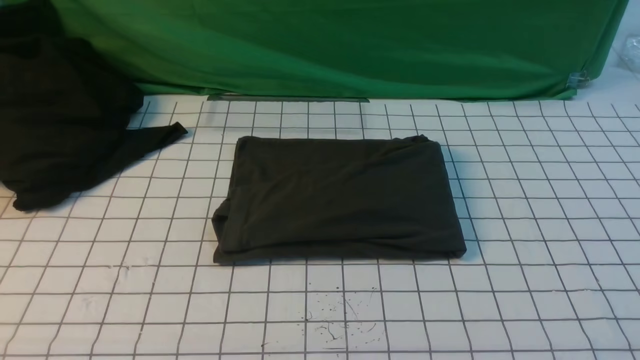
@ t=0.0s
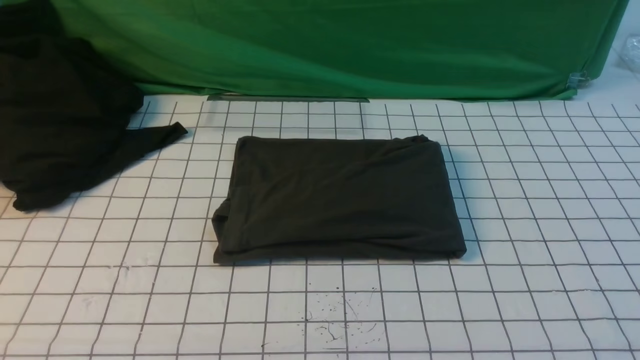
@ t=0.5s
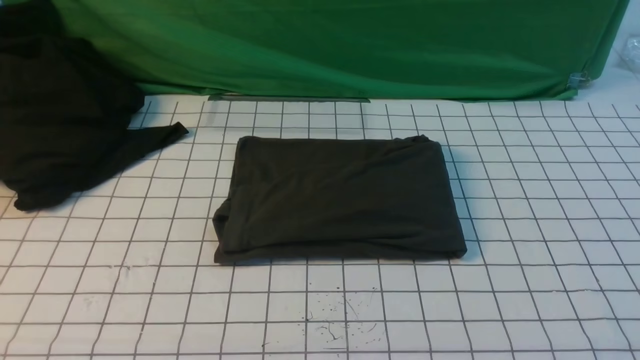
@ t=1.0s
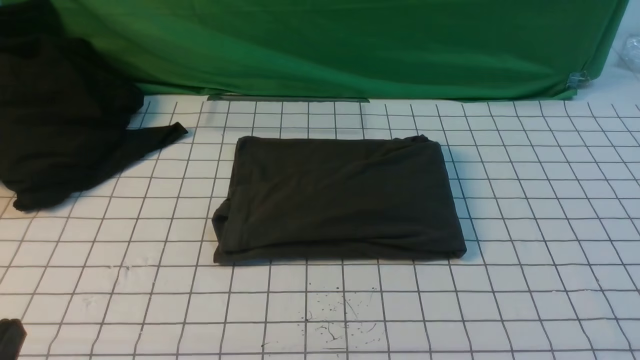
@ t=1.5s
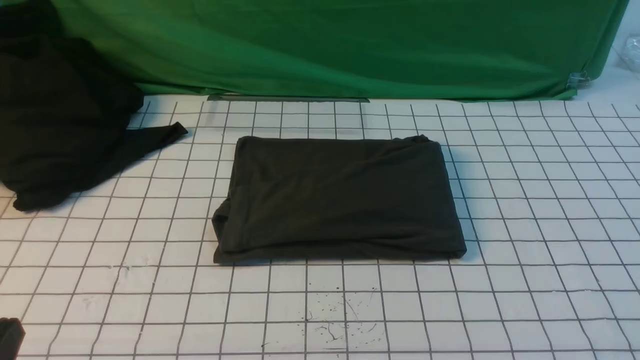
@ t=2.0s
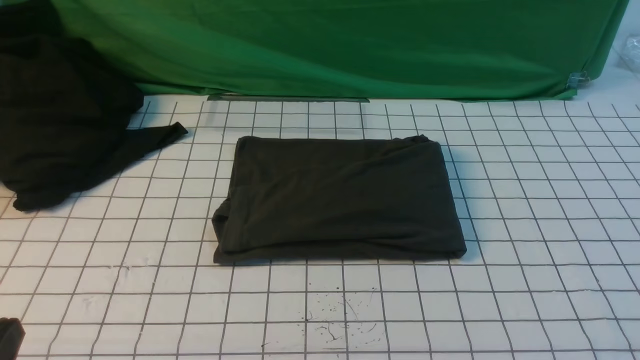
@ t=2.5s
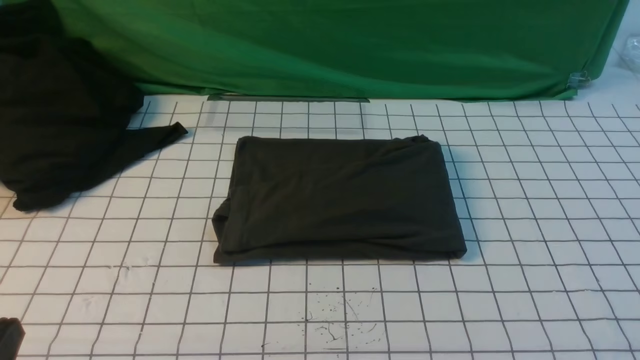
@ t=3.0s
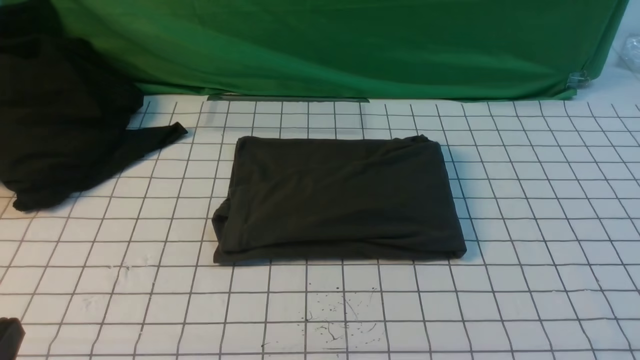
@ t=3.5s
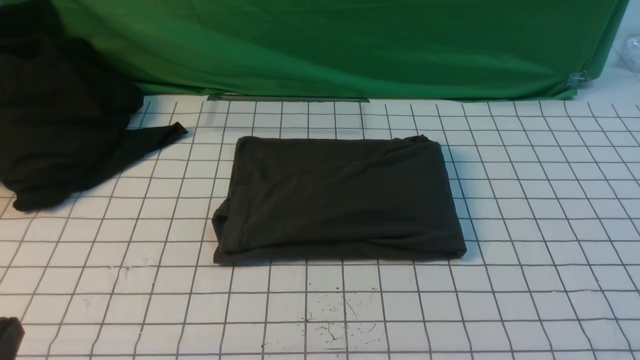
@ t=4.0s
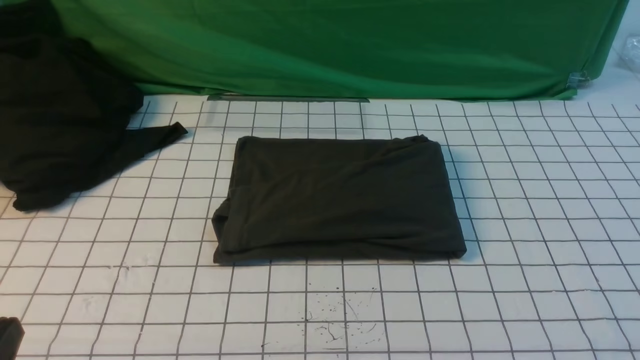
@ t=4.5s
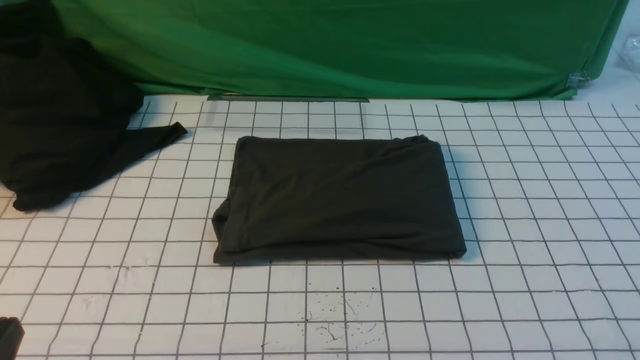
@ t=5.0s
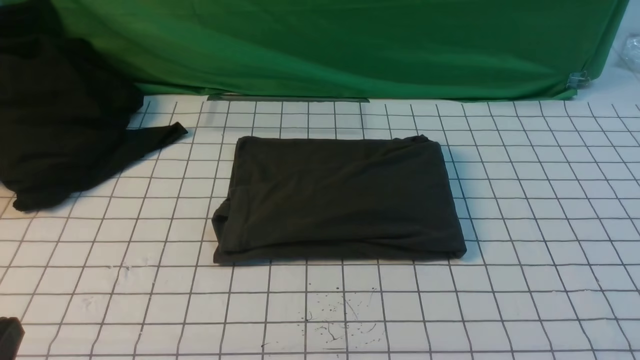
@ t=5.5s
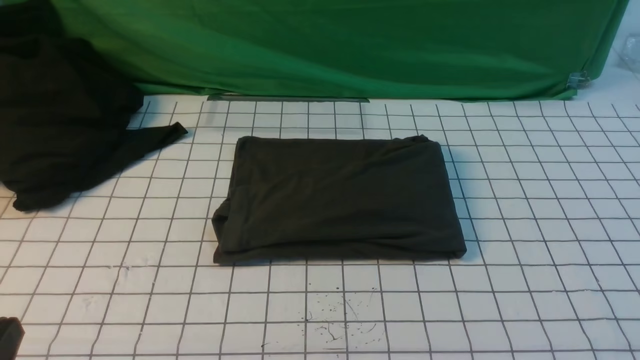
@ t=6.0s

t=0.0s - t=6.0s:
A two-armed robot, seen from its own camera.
t=4.0s - t=6.0s: The two grippers keep their place.
